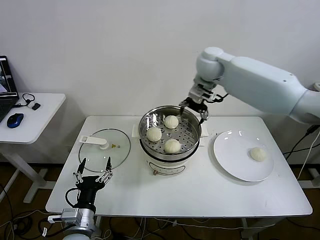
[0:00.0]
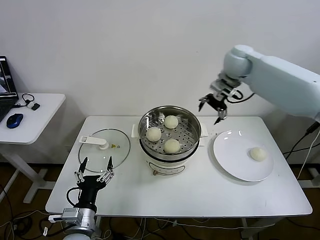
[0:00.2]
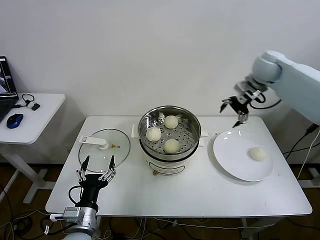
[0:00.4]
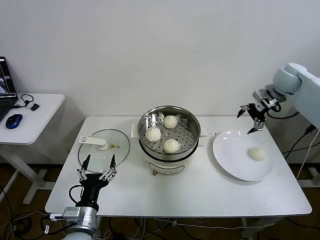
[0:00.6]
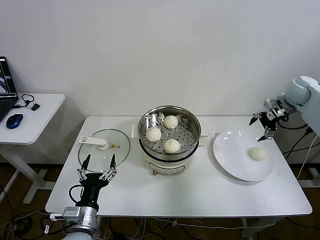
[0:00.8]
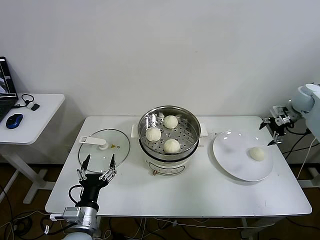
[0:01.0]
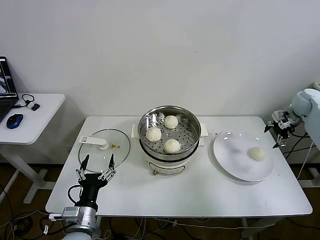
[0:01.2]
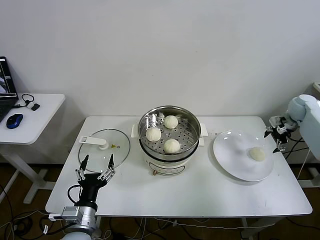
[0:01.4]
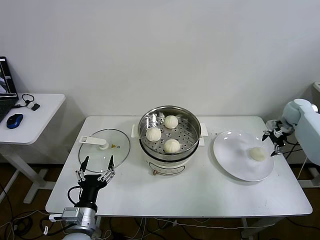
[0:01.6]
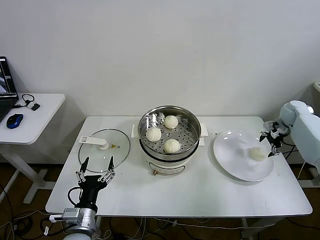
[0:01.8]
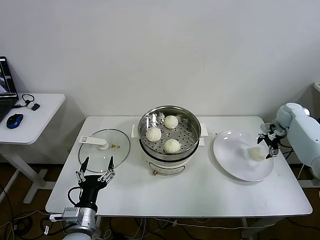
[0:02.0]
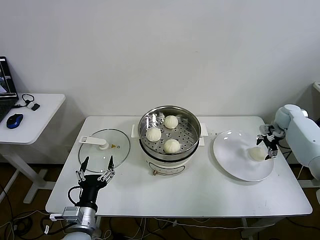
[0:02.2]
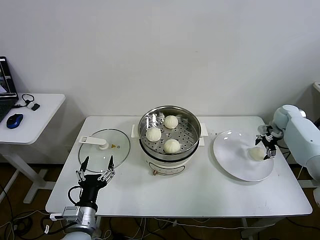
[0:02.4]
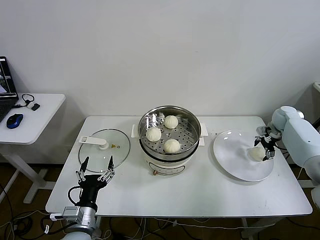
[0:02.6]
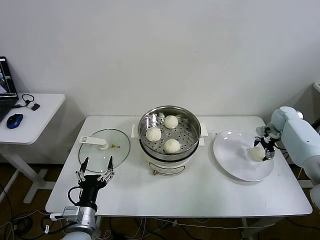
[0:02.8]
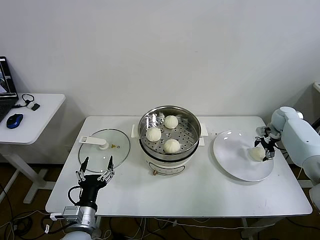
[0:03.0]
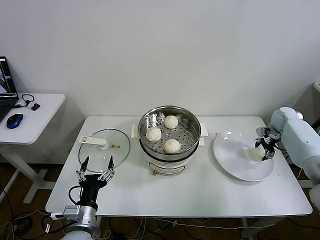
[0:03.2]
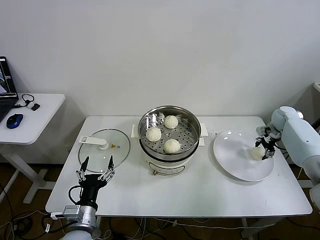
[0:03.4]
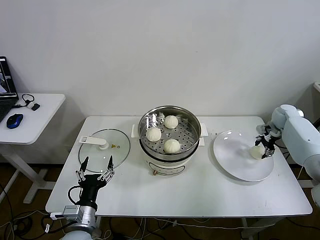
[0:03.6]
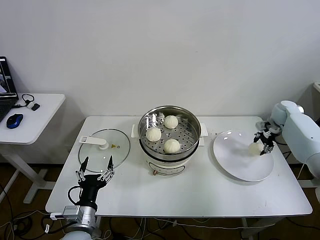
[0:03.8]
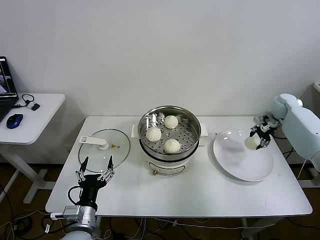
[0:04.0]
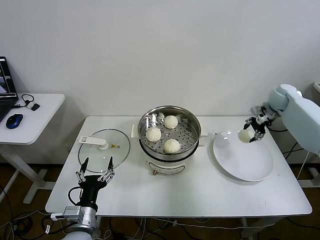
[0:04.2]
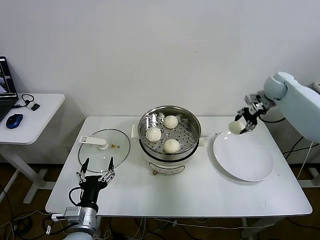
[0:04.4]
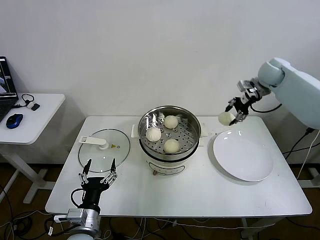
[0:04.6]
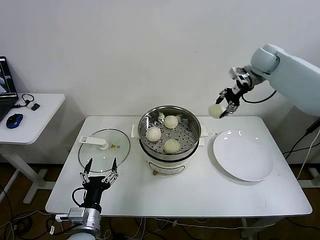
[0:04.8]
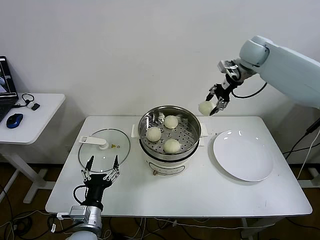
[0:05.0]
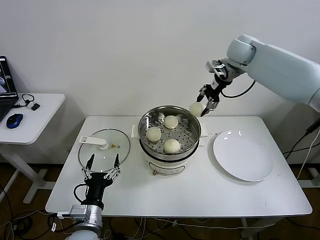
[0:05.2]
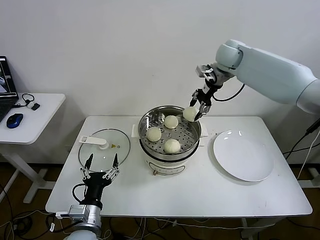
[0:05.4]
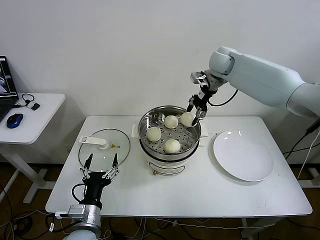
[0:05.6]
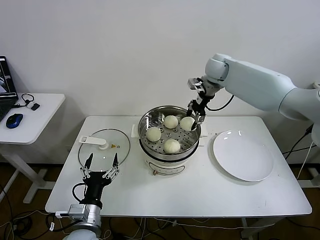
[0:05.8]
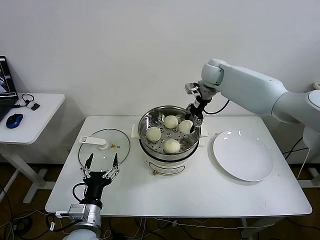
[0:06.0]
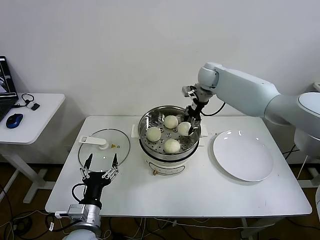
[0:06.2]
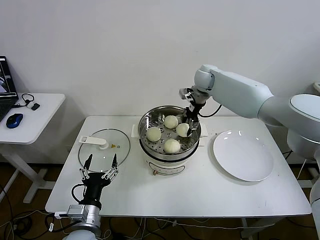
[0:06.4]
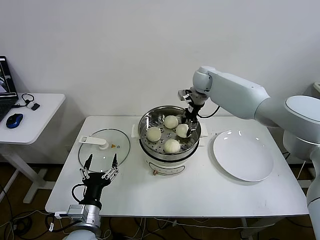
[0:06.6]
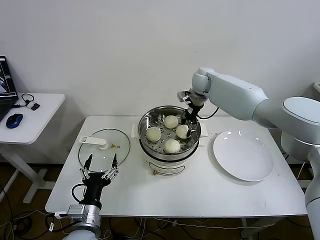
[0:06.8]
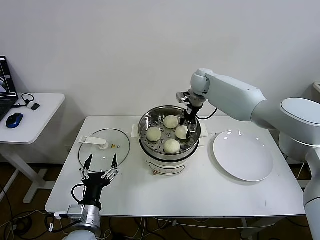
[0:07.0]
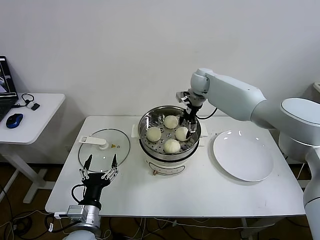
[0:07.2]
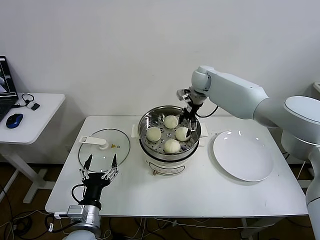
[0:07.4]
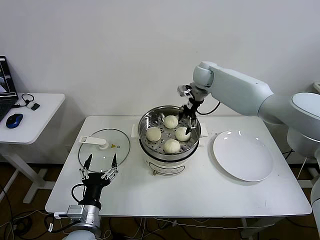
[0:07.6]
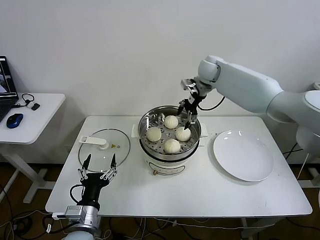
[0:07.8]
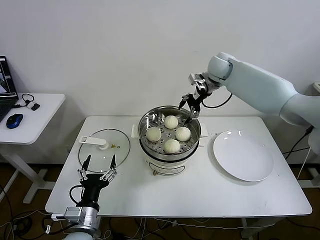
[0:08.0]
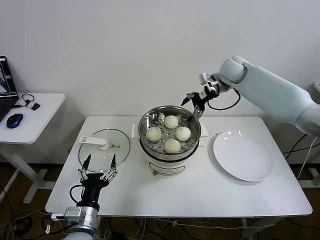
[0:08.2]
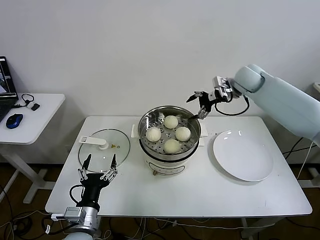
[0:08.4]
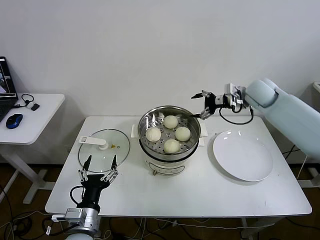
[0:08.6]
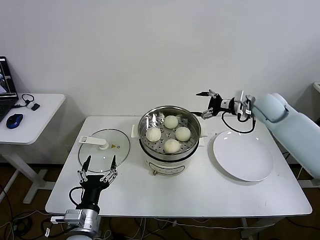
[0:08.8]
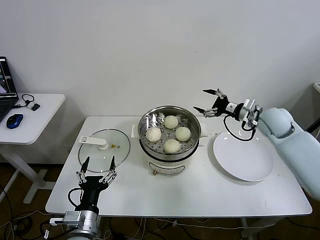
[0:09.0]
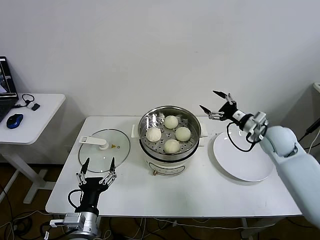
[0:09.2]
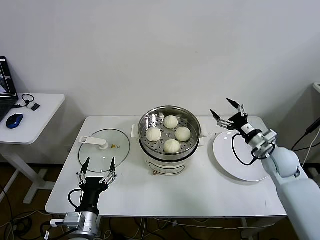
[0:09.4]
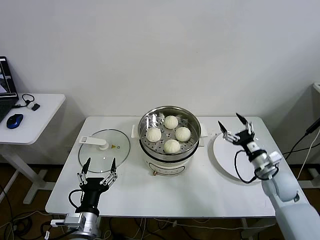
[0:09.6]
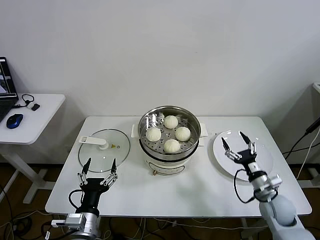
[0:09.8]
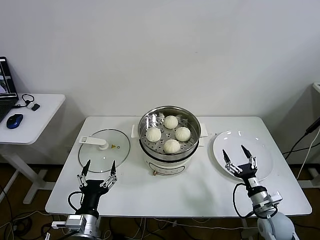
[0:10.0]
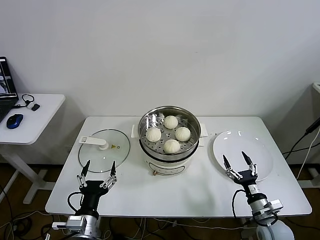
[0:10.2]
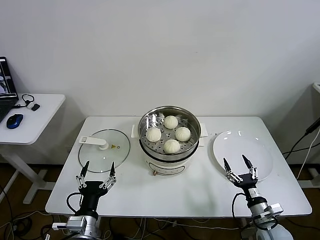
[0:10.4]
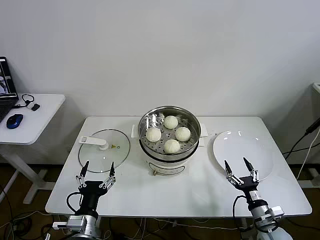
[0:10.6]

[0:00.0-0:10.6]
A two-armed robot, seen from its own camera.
Step, 0:00.0 to 0:03.4: Grasp the baozi in the plate with right gripper.
Step, 0:03.6 to 0:07.4: Place the baozi on the steamer with right gripper.
0:00.0 to 0:01.6: The right gripper moves to the right and downward, some 40 cm.
0:01.6 to 0:03.0: The right gripper shifts some 5 cm downward.
0:03.0 to 0:04.6: The right gripper travels upward and to the left by roughly 25 cm, and closes.
0:04.6 to 0:06.0: The right gripper is displaced to the left by about 20 cm.
0:06.0 to 0:07.6: The right gripper opens.
0:07.6 to 0:09.0: The right gripper travels to the right and backward by about 25 cm.
0:09.0 to 0:10.6: The right gripper goes some 40 cm backward and downward.
